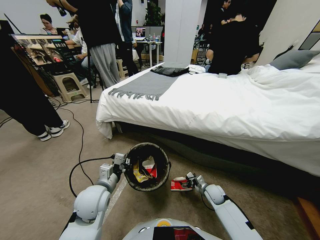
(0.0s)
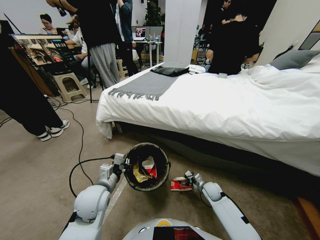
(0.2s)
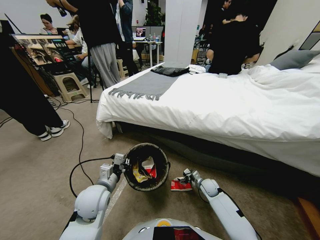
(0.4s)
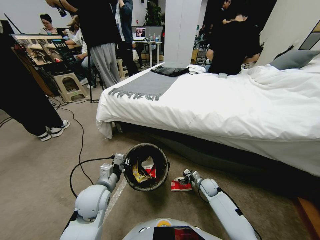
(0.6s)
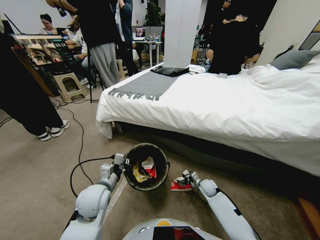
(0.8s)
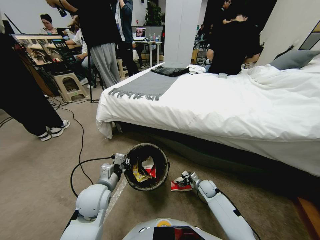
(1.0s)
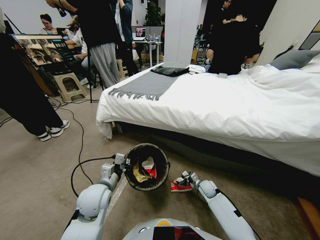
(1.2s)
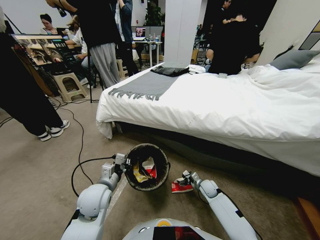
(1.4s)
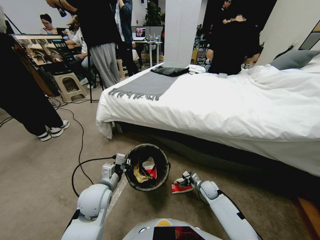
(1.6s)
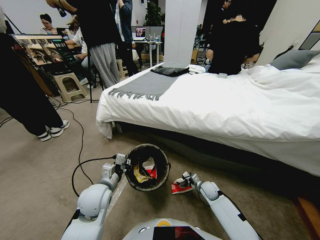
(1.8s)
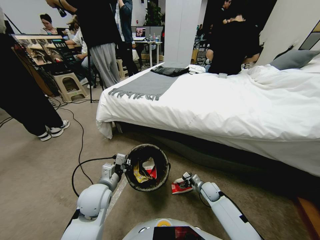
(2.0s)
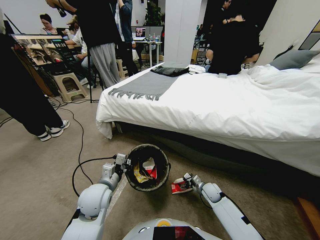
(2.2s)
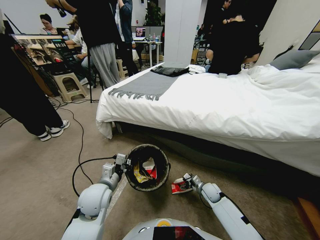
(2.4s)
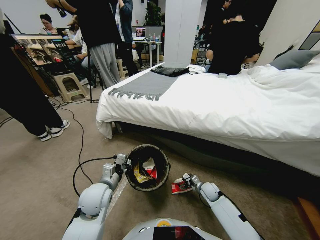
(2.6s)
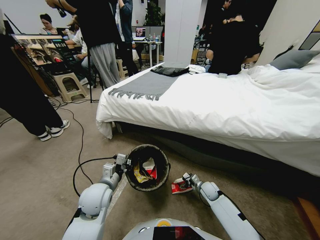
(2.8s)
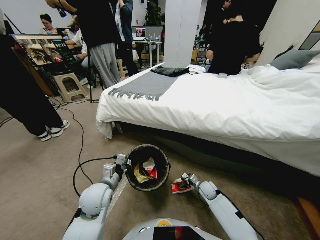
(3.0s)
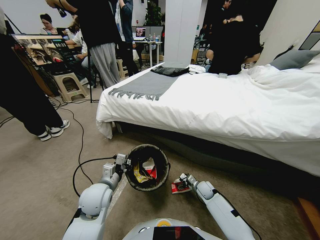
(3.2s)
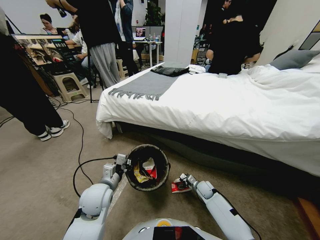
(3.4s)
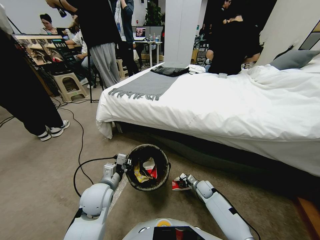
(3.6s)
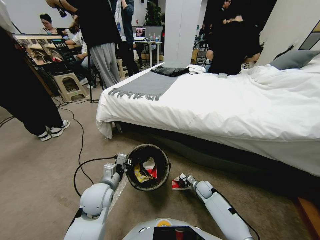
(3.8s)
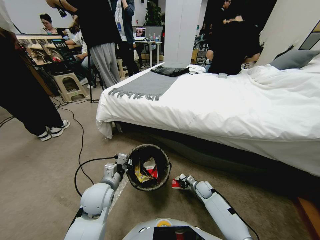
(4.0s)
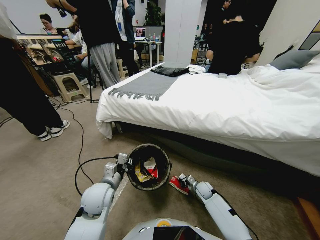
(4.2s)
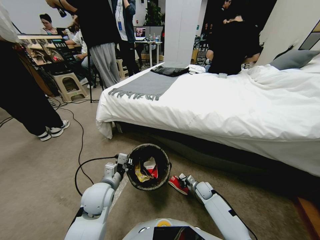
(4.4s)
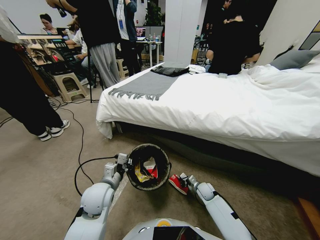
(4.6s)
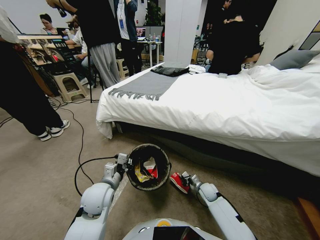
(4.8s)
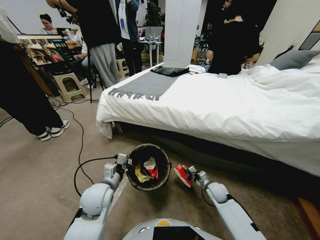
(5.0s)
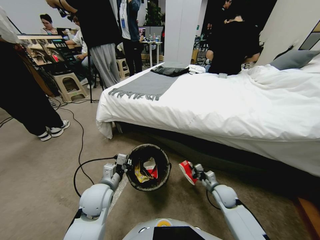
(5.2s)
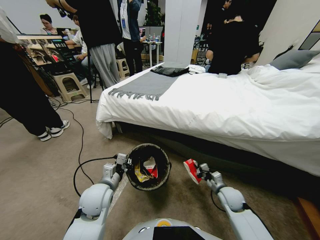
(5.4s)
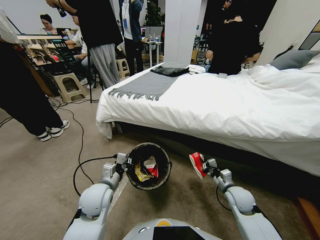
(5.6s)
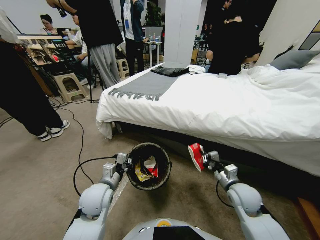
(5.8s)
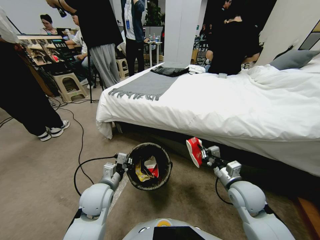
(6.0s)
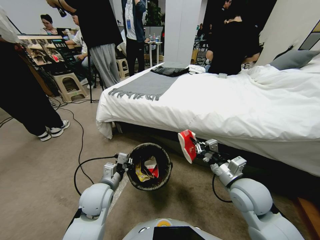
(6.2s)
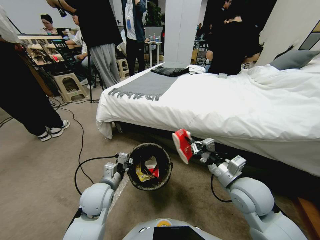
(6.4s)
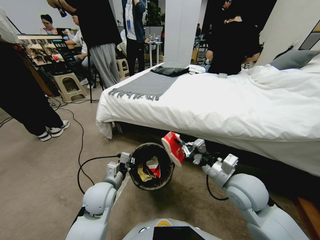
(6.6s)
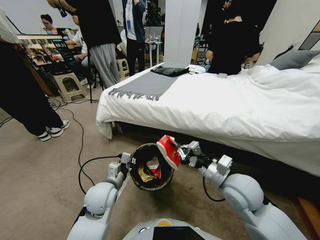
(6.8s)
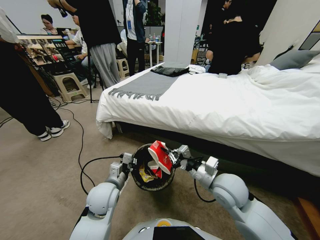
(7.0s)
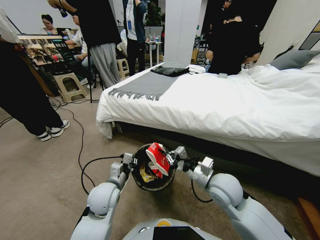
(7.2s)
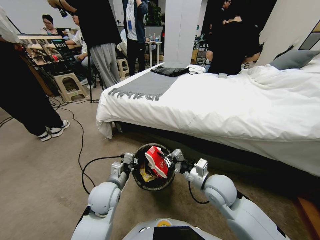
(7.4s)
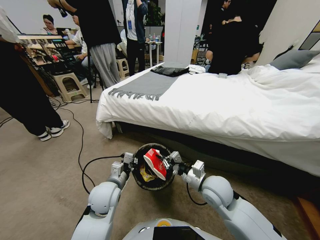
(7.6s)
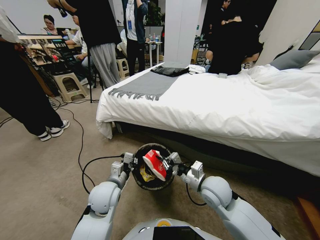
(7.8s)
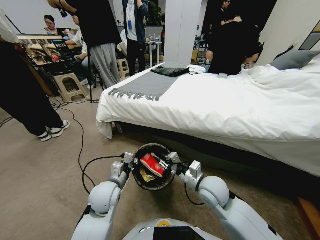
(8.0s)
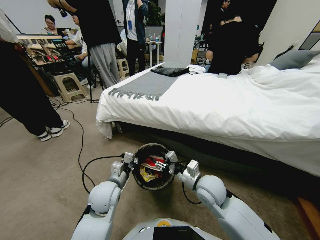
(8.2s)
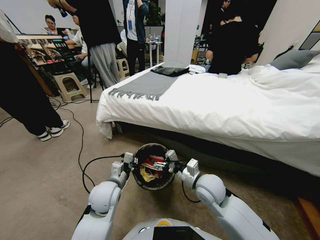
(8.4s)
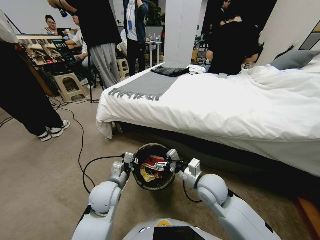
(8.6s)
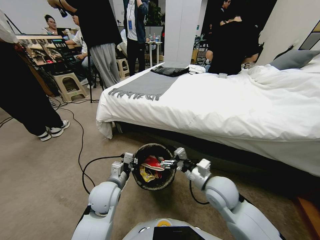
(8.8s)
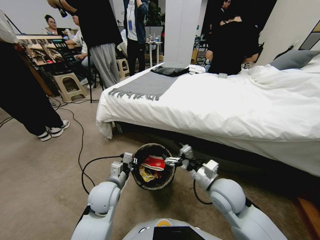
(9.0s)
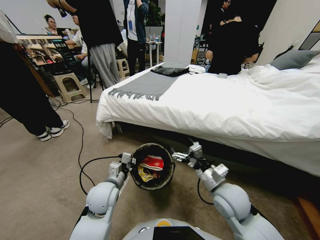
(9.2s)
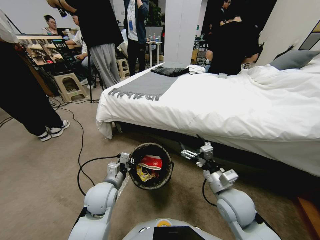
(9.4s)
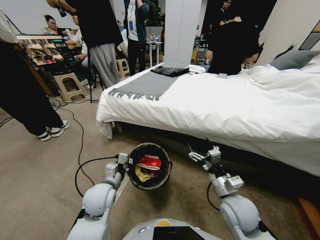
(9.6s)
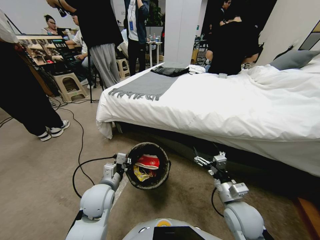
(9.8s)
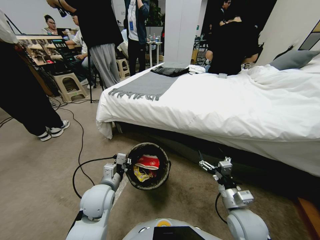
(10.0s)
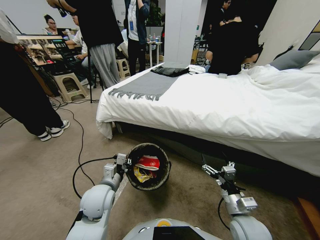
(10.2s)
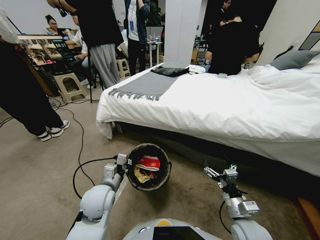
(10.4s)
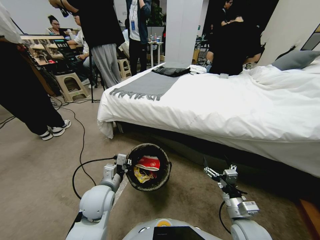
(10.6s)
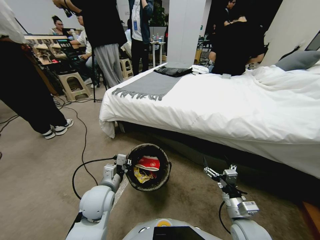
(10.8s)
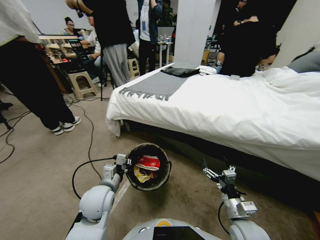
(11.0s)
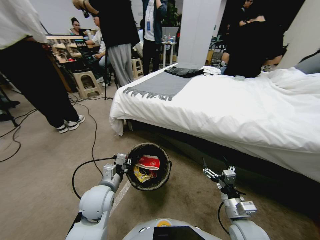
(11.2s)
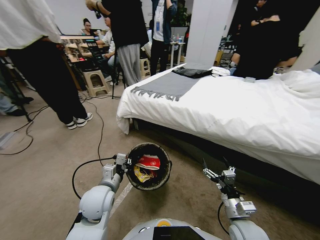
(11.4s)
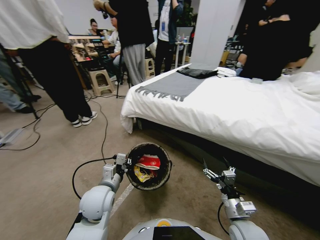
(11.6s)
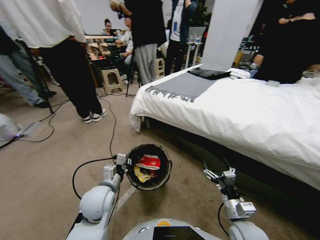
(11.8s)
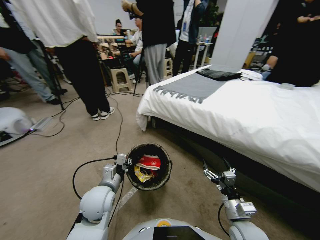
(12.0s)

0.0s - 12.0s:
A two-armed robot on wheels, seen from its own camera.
Task of the whole recording: Pick up the trash bin, then pick up the garbage from the floor and place it into the trash bin.
0.0s - 3.0s: The grippers stay close to where they were, moving slightly.
3.0s - 4.4s: The right gripper closes up.
4.4s - 6.0s: The right gripper heads upward, covering some 30 cm.
6.0s - 7.6s: The right gripper travels to the left by about 10 cm.
7.6s - 9.0s: The right gripper opens.
9.0s - 10.4s: The right gripper moves backward, downward and to the right, about 15 cm.

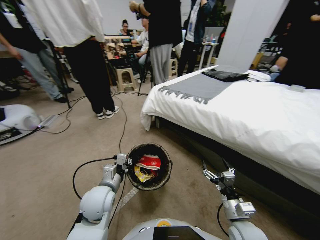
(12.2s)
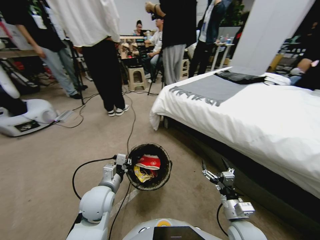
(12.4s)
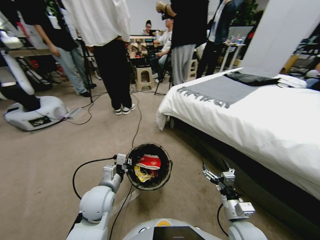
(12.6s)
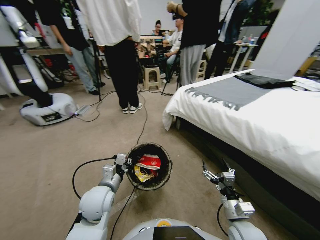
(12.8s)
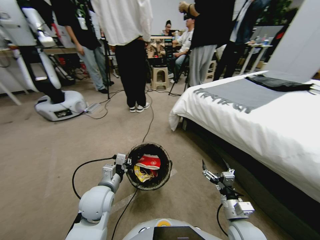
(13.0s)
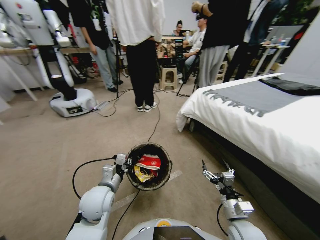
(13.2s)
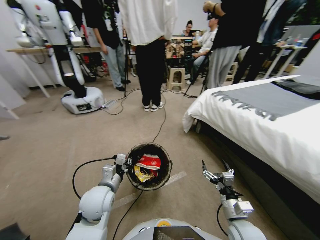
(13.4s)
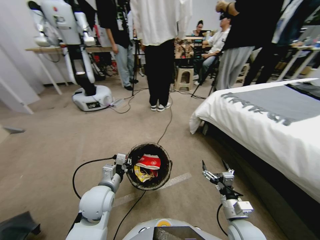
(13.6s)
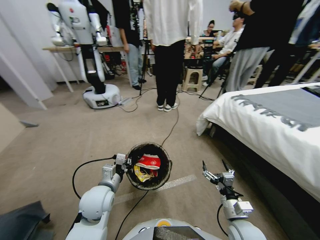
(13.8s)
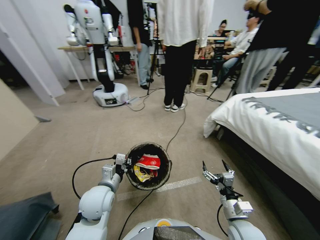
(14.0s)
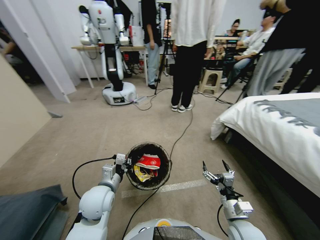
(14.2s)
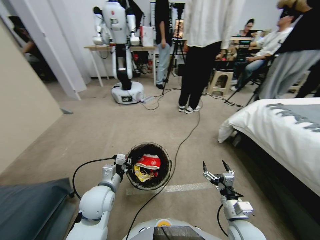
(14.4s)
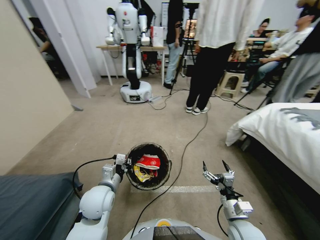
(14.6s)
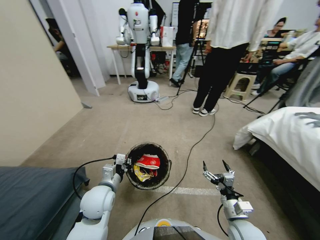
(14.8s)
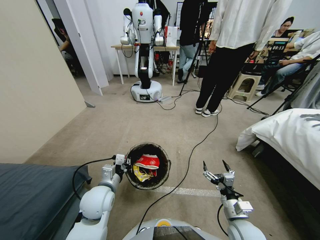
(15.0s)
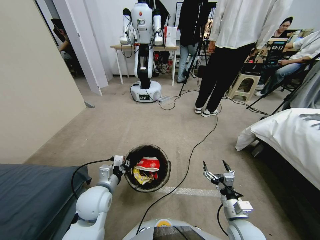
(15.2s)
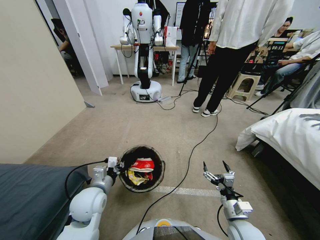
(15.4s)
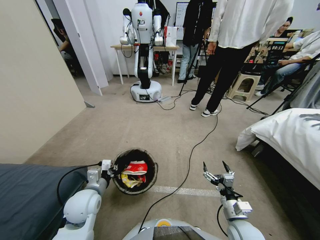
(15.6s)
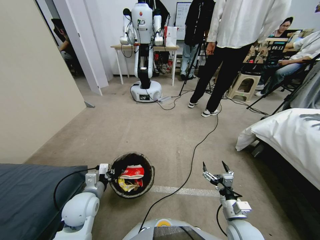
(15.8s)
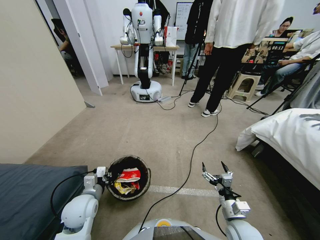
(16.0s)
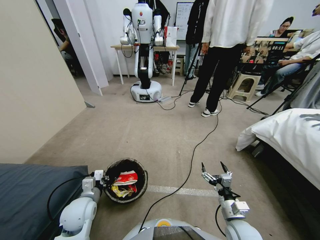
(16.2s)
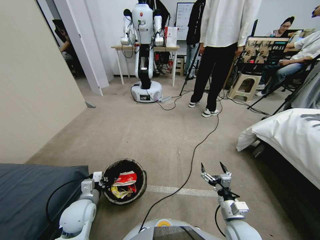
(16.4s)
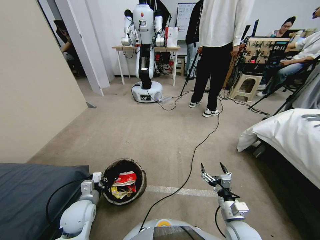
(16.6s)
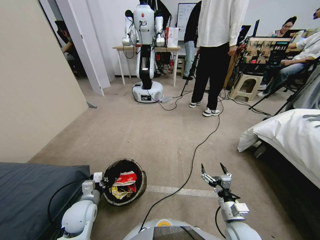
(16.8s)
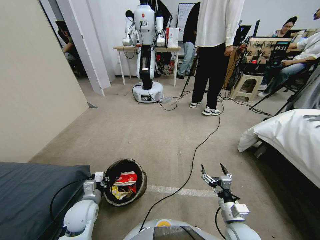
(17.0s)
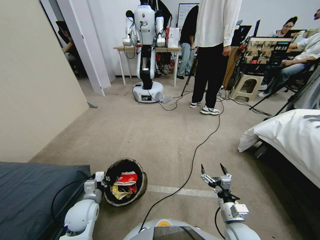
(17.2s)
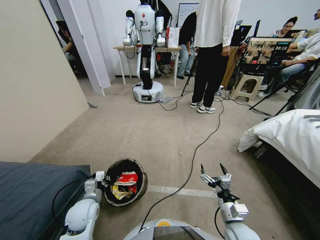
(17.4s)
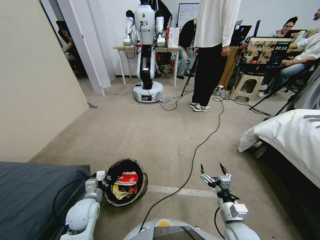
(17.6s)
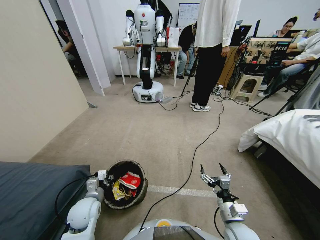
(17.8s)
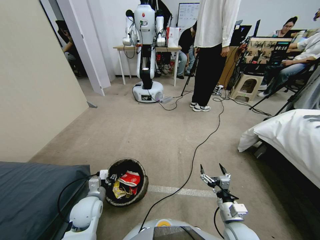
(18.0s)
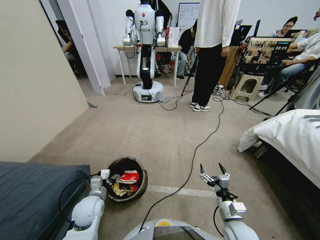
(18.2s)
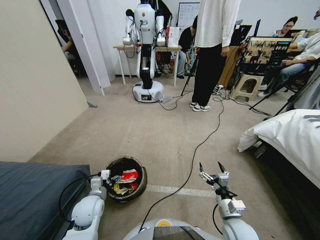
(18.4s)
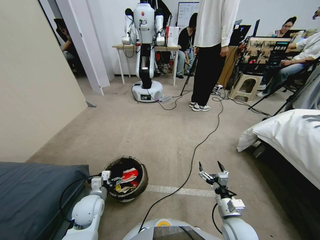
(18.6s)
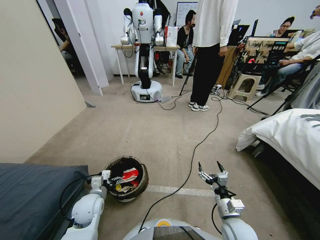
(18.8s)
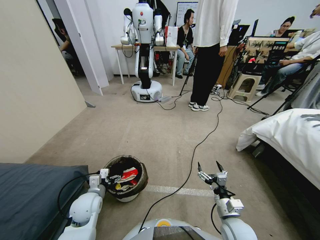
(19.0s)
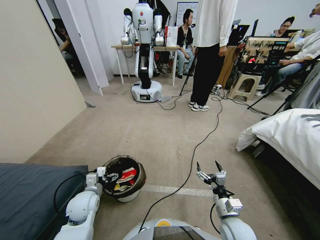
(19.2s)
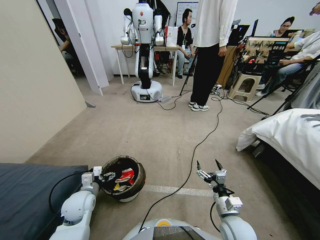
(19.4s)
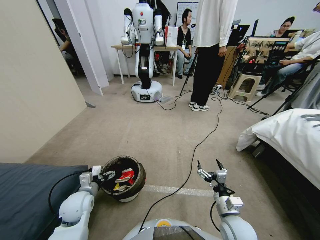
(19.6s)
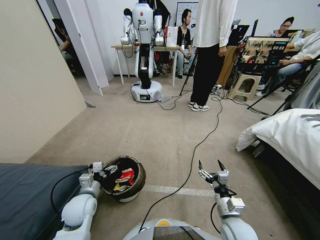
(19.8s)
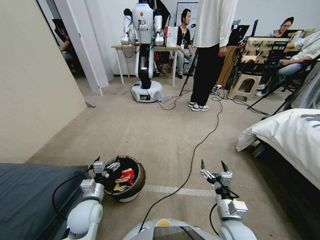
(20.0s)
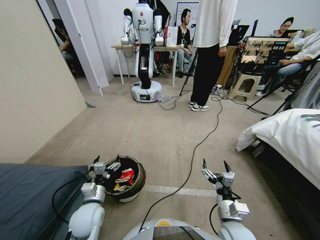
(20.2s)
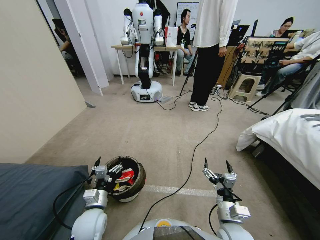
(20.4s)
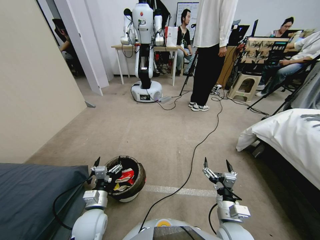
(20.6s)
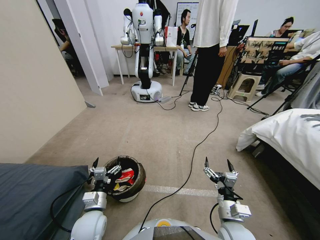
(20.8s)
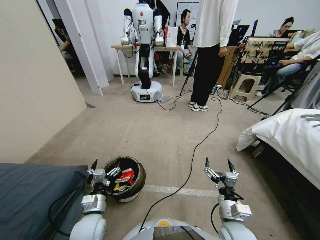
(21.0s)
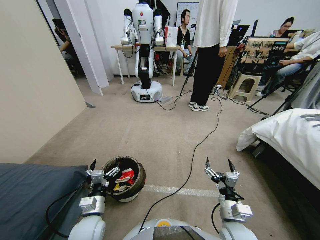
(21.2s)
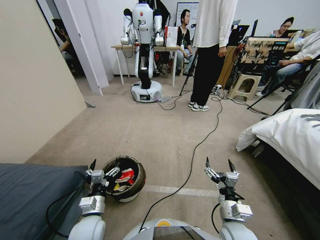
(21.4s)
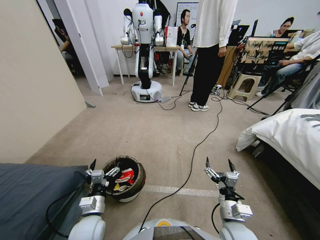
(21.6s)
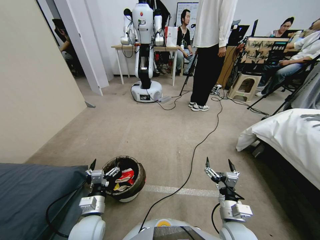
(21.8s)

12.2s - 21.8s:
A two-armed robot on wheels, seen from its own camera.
Task of the whole recording: Pick up the trash bin, then pick up the garbage from the floor and place it into the trash bin.
15.4s - 17.0s: The left gripper goes approximately 10 cm downward.
17.0s - 18.6s: The left gripper opens its fingers.
18.6s - 20.2s: The left gripper ends up roughly 5 cm from where it was.
20.2s - 21.8s: The grippers move only a little.

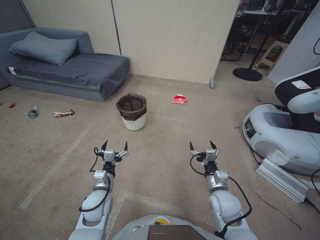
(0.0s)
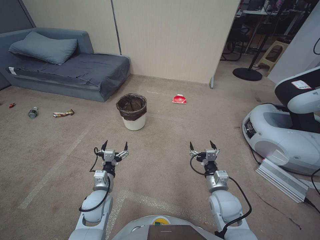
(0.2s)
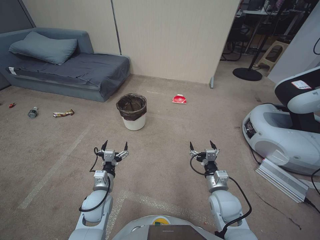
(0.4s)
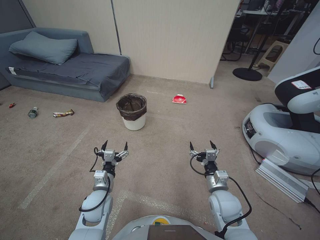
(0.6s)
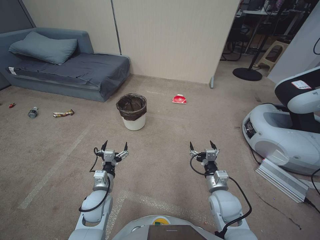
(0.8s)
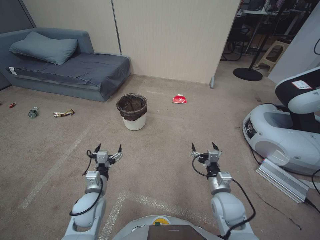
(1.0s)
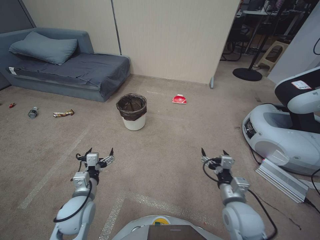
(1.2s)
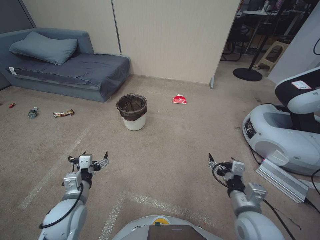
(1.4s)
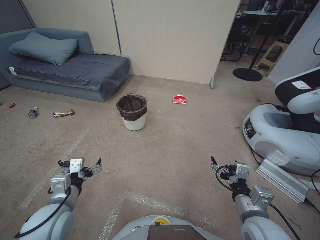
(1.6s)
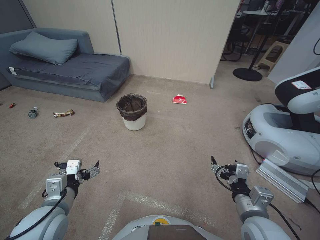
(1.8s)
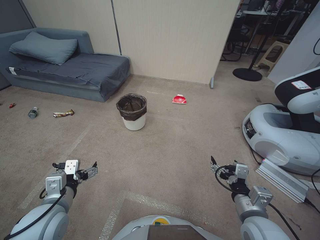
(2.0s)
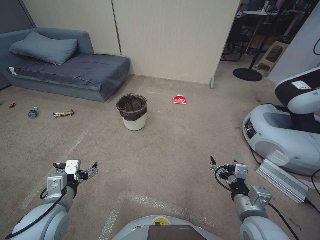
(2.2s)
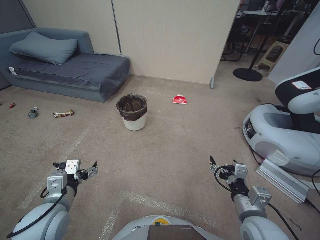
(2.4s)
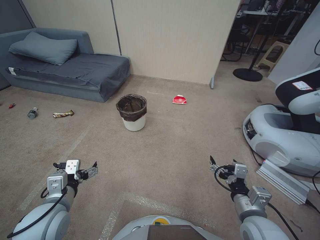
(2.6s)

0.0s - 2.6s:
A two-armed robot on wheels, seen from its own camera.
Task of the whole recording: Pick up the trash bin, then pick up the garbage from the floor and place it into the trash bin.
1.2s - 2.6s: The left gripper shifts approximately 10 cm upward, while the right gripper travels upward and backward by some 10 cm.
